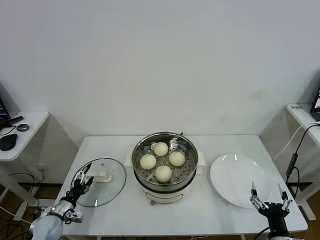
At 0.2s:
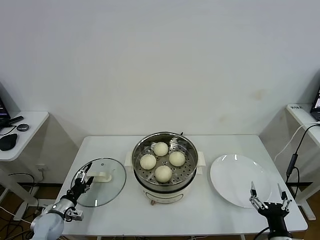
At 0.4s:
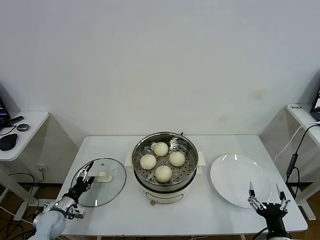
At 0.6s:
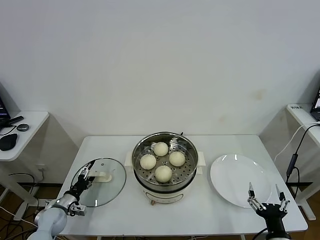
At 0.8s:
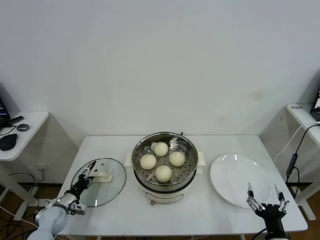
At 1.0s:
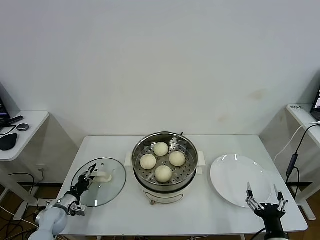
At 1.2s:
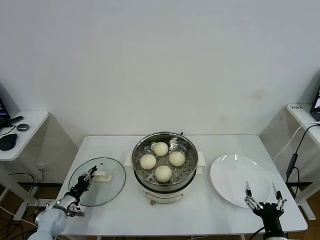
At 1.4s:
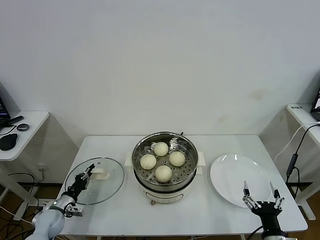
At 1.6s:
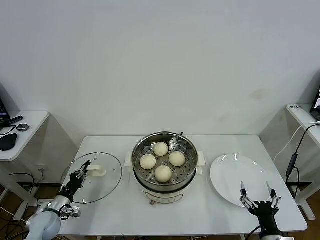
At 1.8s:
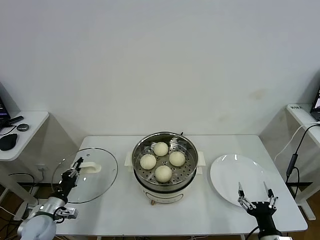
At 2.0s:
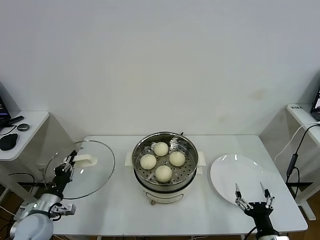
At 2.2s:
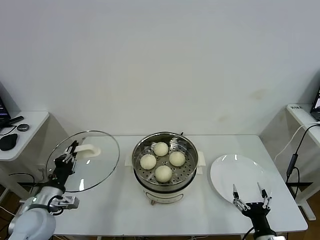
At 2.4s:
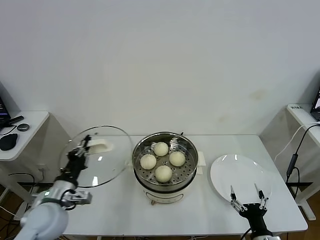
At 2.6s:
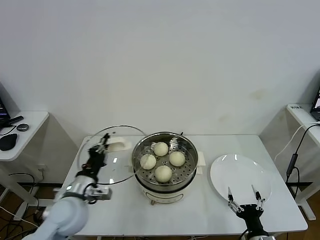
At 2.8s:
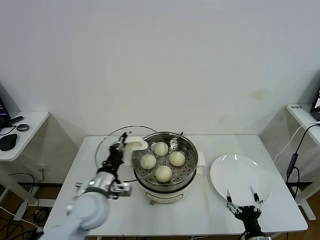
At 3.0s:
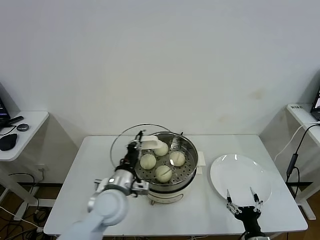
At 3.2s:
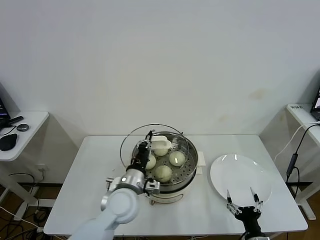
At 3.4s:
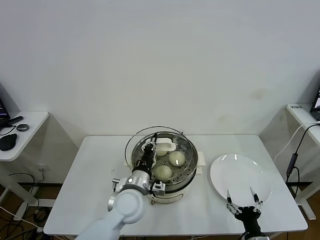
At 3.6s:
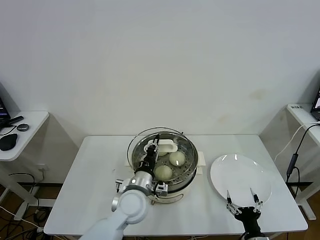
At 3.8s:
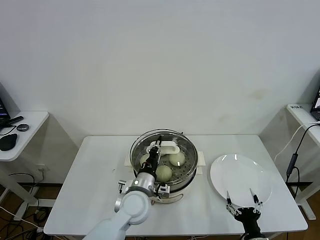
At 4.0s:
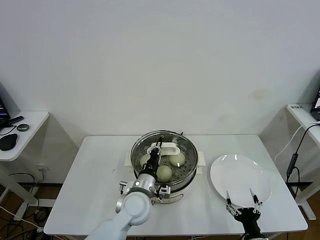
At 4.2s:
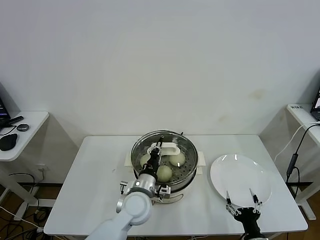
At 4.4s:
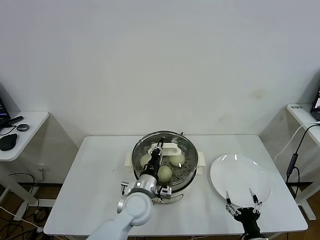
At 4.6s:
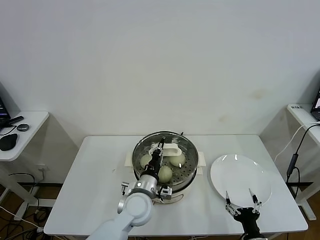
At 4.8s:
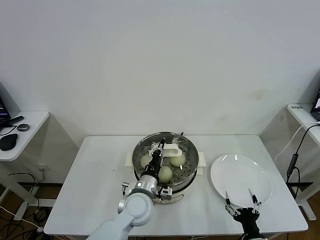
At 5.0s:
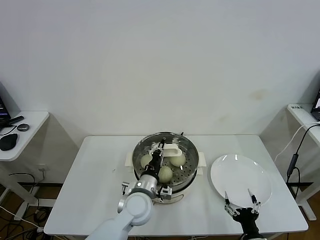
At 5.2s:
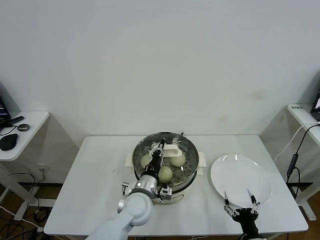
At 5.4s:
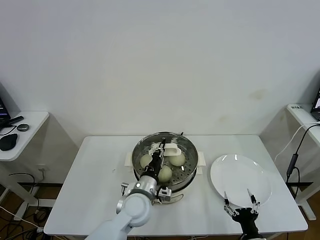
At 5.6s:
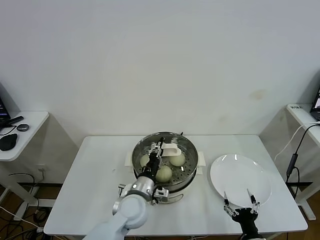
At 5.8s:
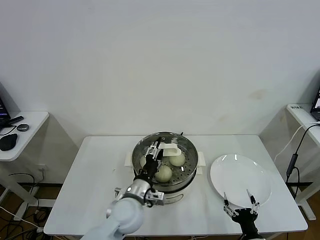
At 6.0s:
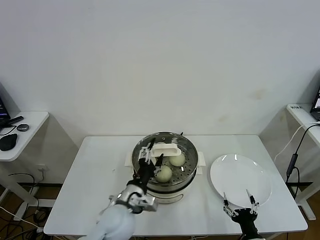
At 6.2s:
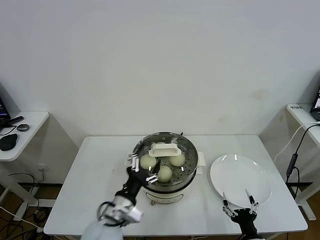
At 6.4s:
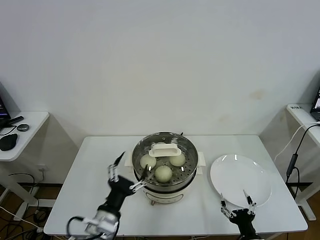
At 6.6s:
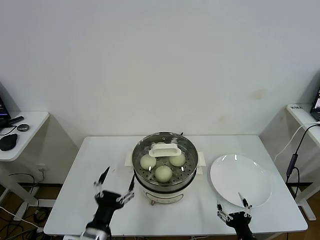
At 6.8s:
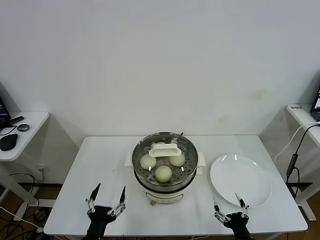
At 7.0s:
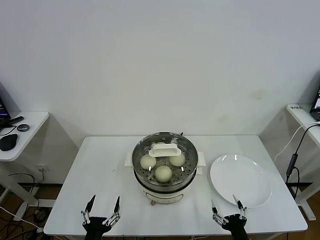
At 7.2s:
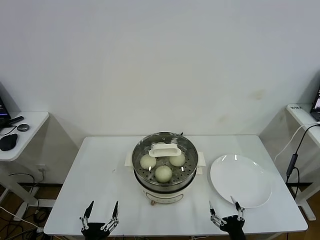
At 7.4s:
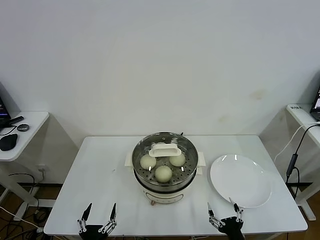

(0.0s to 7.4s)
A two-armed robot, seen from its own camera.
Task of the whole recording: take steamed baozi put them in steamer.
Step, 1.6s - 6.0s: Place the pot lid on the steamer with left gripper.
0.0s - 1.4s: The left gripper closes its fingers.
1.4s - 3.0s: The left gripper travels to the right and upward by some 35 cm, while the right gripper shifts approximately 5 cm downward.
3.0s - 4.4s: The left gripper travels to the right and downward by roughly 10 cm.
4.4s - 6.0s: The left gripper moves about 5 cm, and opens.
6.0s - 7.4s: The left gripper heads backward, to the left and downward, covering some 25 cm.

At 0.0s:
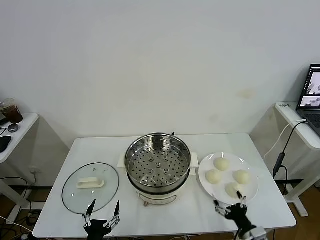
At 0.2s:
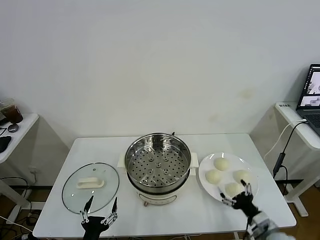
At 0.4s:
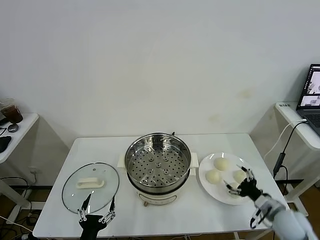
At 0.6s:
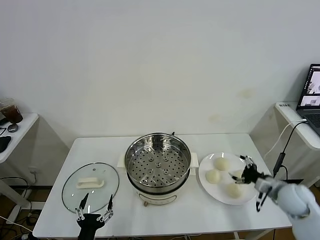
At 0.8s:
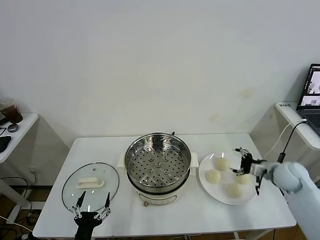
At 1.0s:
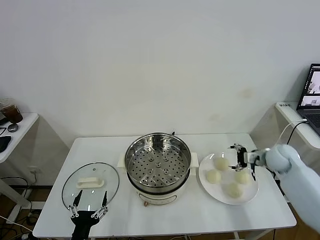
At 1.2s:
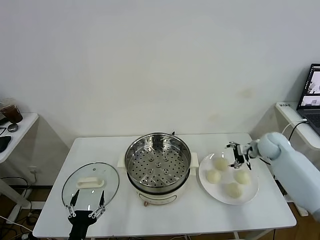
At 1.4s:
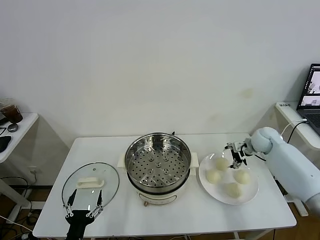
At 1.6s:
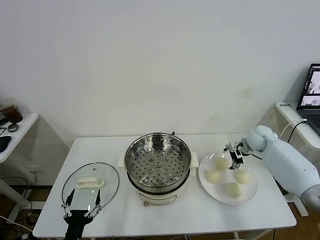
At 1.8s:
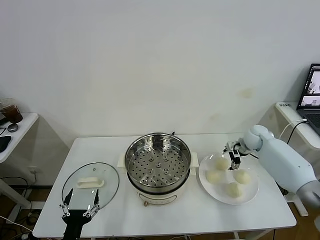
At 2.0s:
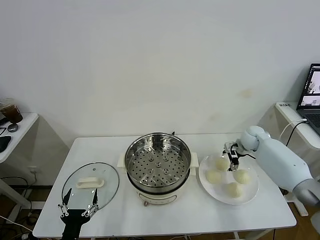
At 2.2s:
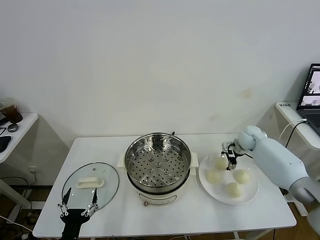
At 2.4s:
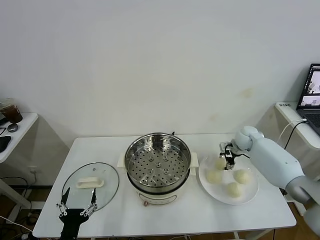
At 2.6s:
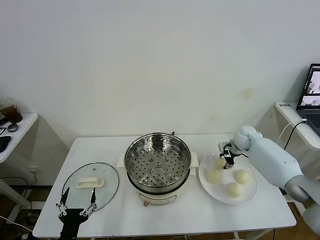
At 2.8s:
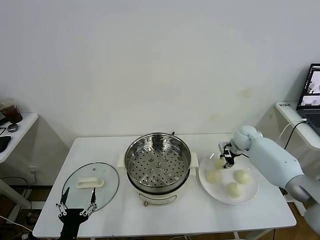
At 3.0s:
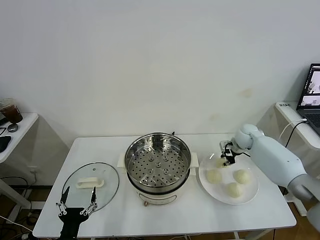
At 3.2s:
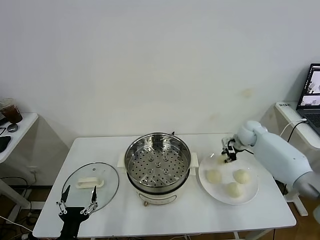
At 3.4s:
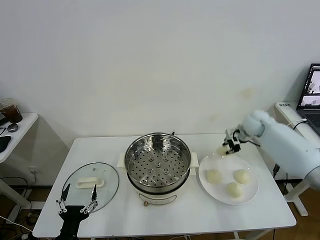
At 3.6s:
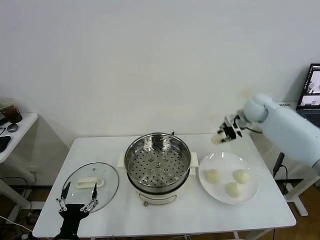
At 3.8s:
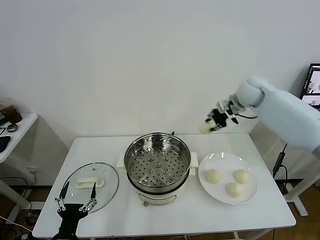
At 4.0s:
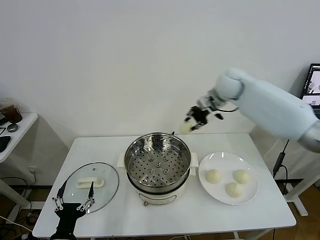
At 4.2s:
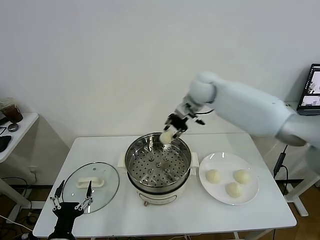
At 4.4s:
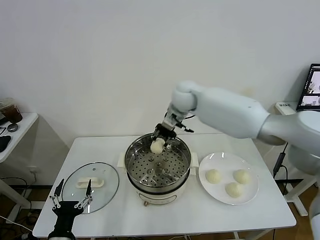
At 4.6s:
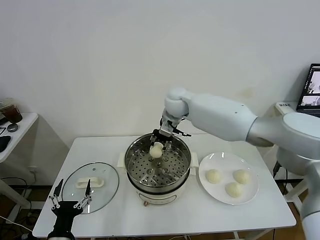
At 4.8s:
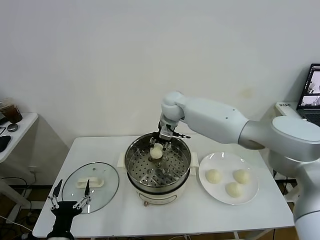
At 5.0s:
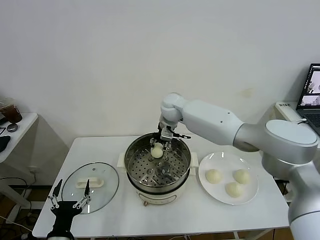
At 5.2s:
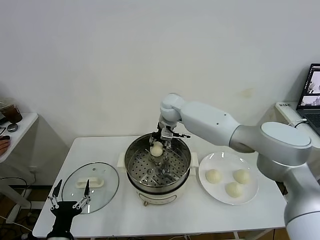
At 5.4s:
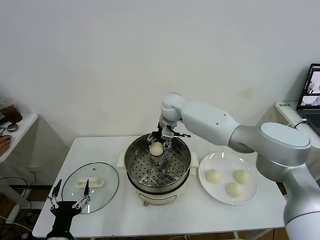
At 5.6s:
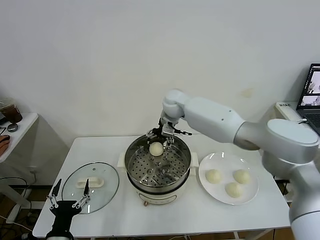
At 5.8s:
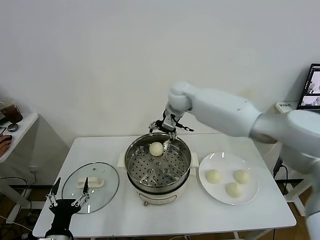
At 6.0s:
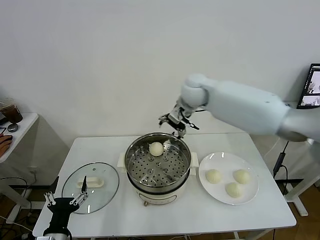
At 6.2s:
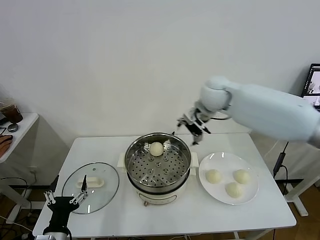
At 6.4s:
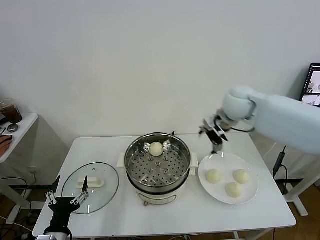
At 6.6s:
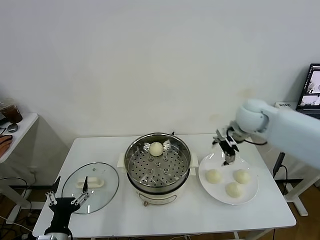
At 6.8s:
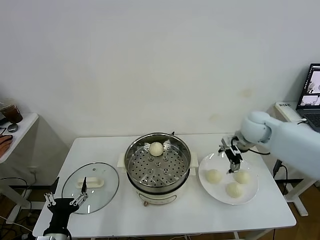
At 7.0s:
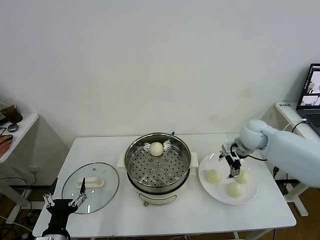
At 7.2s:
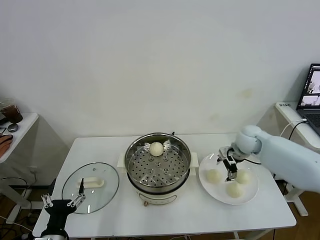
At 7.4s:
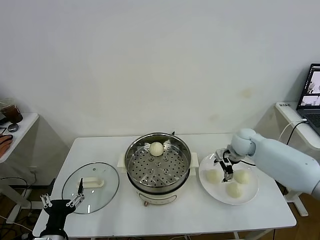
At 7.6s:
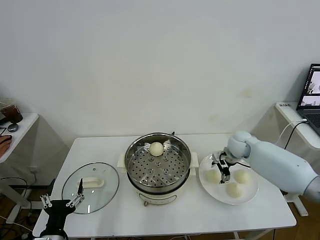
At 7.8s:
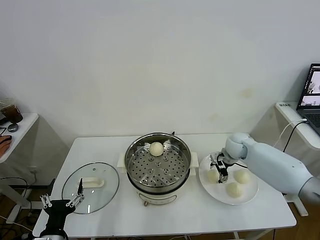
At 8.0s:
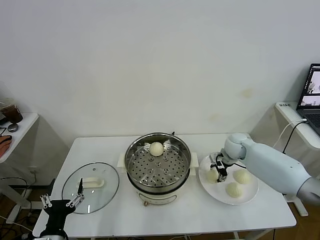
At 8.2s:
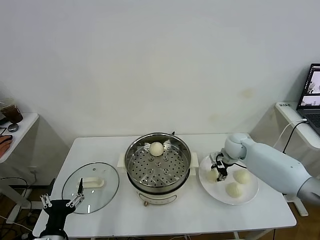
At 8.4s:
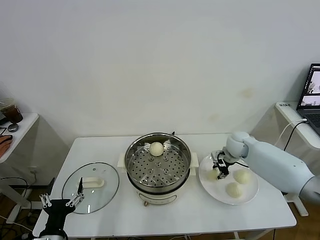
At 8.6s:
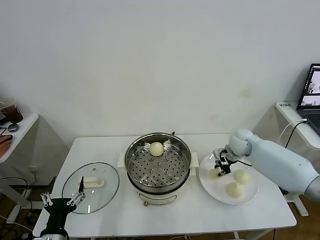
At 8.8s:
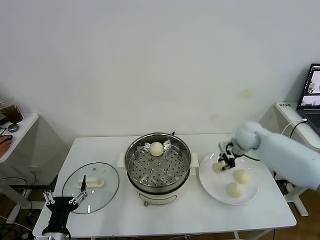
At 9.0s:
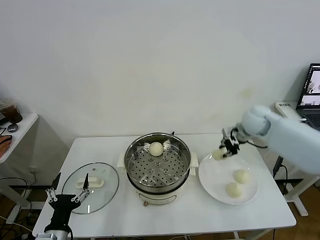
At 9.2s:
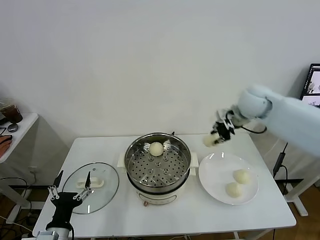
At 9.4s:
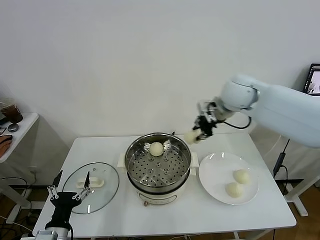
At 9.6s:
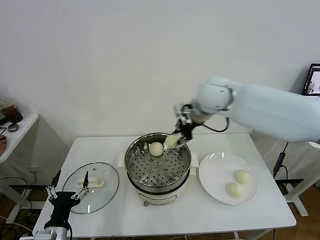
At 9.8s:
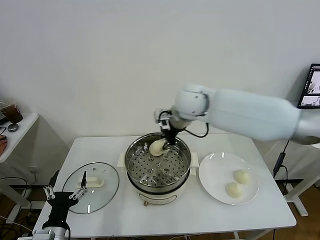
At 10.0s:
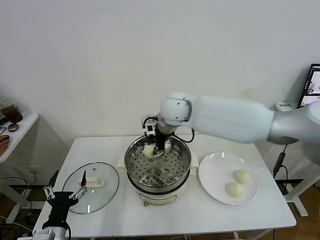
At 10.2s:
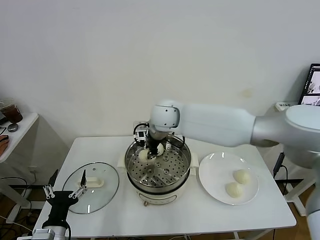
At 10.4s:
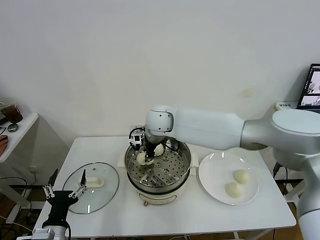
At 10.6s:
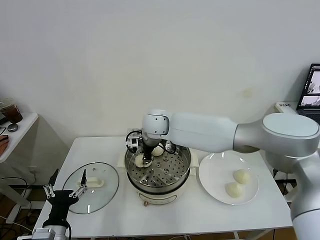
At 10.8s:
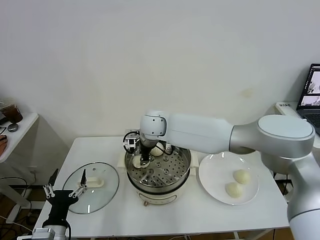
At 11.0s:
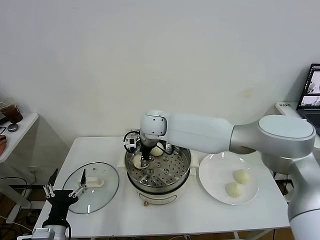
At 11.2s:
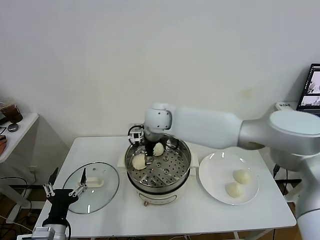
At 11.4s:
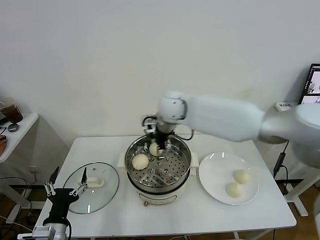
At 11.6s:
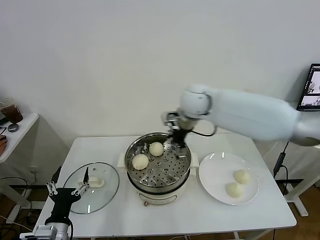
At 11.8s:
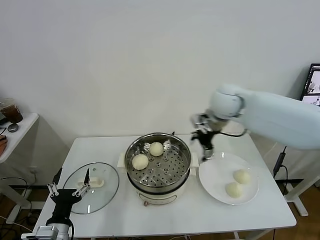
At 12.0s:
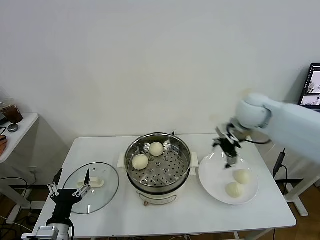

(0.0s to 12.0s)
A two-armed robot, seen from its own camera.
Task of the whole recording: take steamed baozi put them in steamer.
Step, 0.0s - 2.8s: Grasp the baozi in the plate with right gripper.
Step, 3.0s - 5.6s: Place the baozi on the steamer with right gripper.
Step, 5.8s - 8.2s: Grasp the baozi in the plate with right gripper.
Step, 8.4s - 11.2s: Place the baozi on the steamer with right gripper.
1.6s - 3.0s: The right gripper closes.
3.0s - 4.4s: The right gripper goes about 35 cm to the left and upward.
4.4s - 6.0s: The right gripper travels downward and back again, about 5 cm each way, and opens its fingers.
6.0s - 7.6s: The right gripper shifts some 30 cm downward and to the right.
7.6s - 9.0s: The right gripper is displaced upward by some 10 cm, and closes its fingers.
9.0s - 10.4s: The right gripper travels to the left by about 30 cm.
10.4s - 12.0s: The right gripper goes some 25 cm to the right, and opens.

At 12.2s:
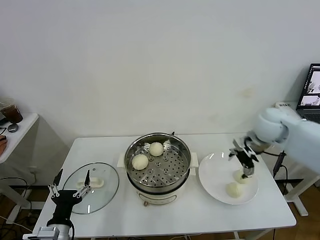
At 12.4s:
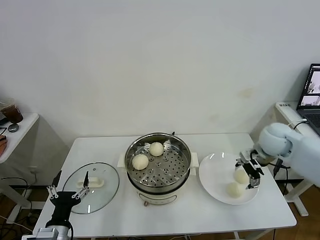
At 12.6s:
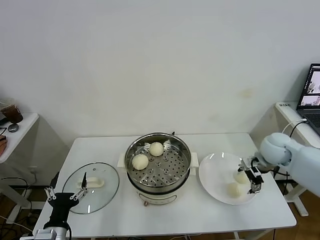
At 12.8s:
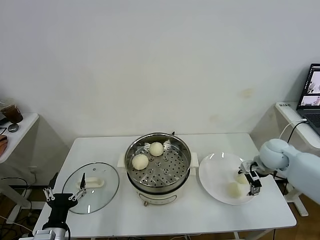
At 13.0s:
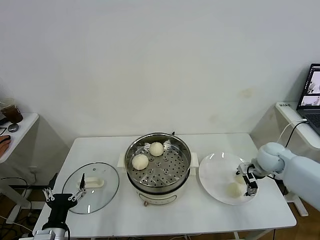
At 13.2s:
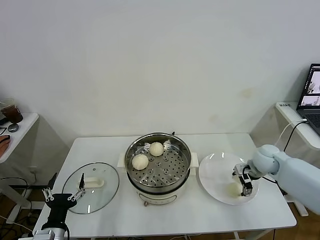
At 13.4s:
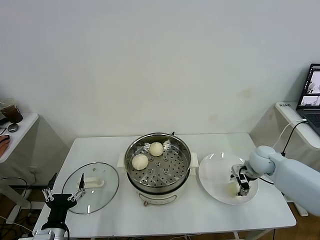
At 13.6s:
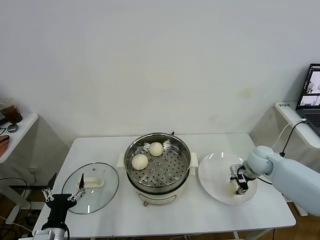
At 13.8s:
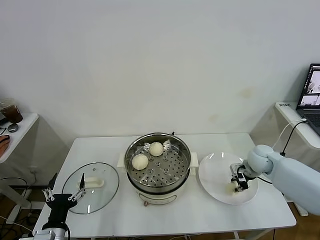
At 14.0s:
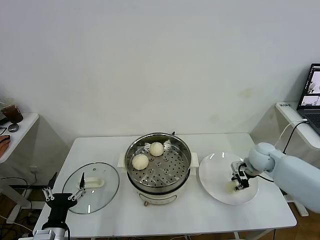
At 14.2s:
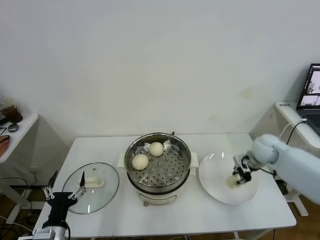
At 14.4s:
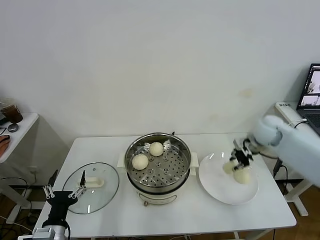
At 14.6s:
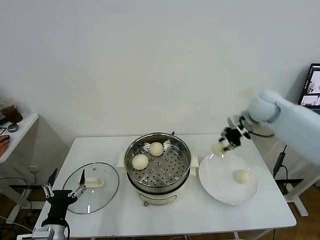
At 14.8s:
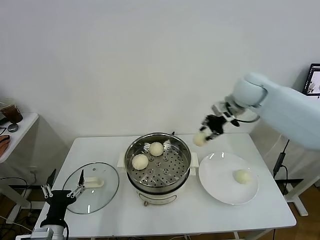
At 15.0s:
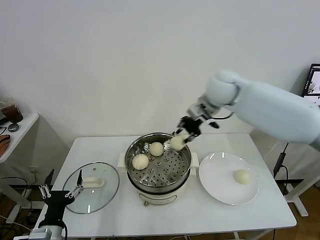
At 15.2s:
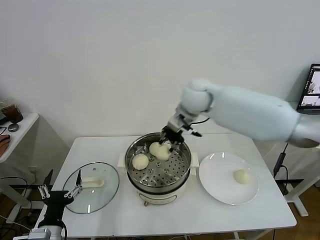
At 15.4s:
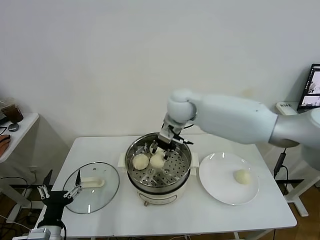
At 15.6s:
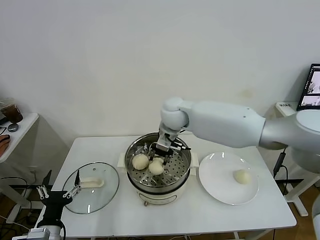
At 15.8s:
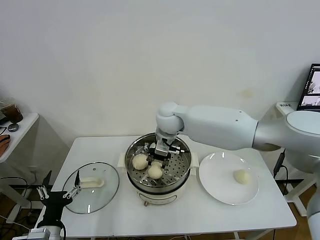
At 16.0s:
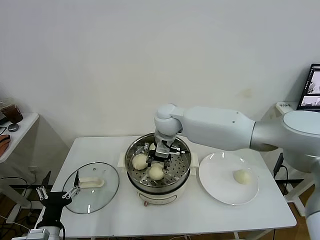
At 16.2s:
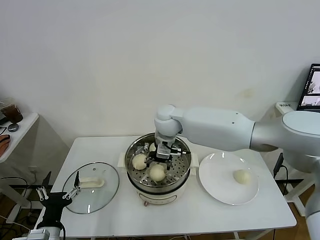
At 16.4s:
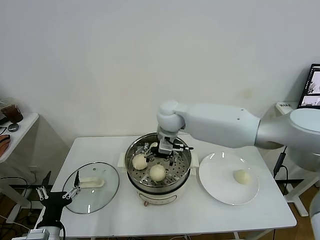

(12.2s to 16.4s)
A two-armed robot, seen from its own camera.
Task of the whole recording: take steamed baozi put them in steamer.
Step, 12.2s - 13.8s: Grasp the baozi in the plate with right gripper.
Step, 14.2s - 16.4s: Place the baozi on the steamer with right gripper.
12.2s - 13.6s: The right gripper travels downward by approximately 15 cm, and closes its fingers.
13.6s - 15.0s: The right gripper travels upward and to the left by some 30 cm, and closes up.
15.0s - 16.4s: The right gripper moves to the left and downward, approximately 20 cm, and opens up.
